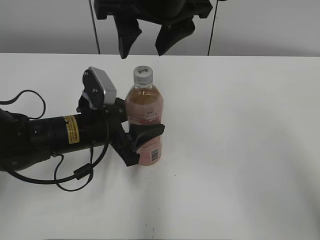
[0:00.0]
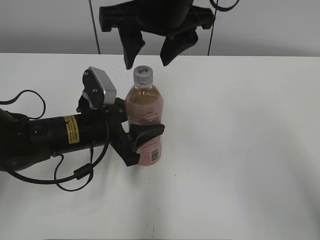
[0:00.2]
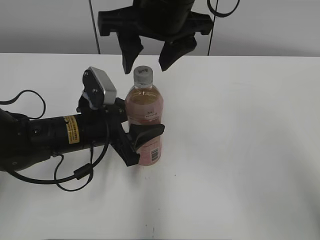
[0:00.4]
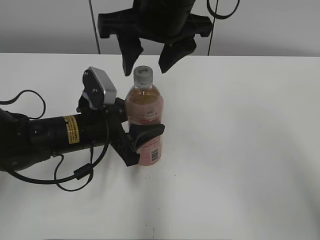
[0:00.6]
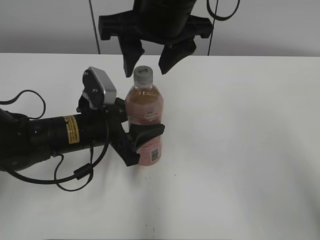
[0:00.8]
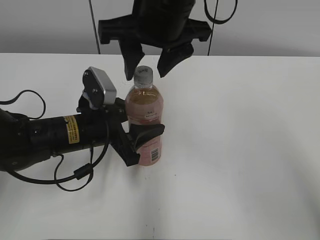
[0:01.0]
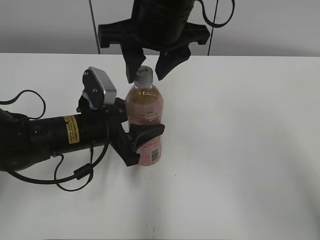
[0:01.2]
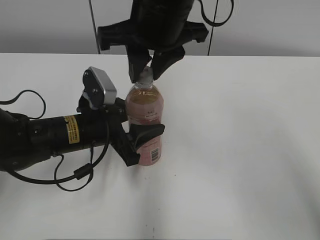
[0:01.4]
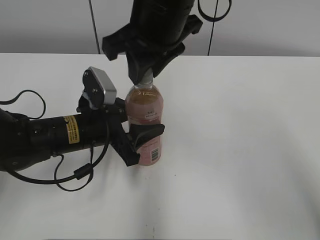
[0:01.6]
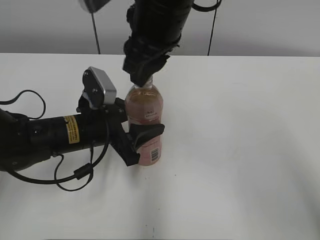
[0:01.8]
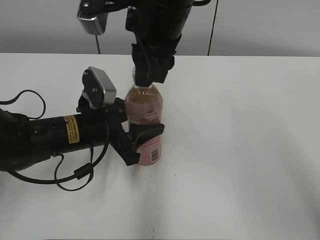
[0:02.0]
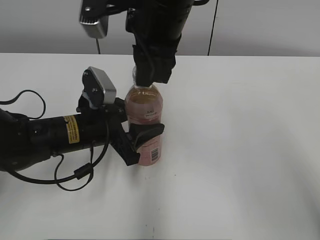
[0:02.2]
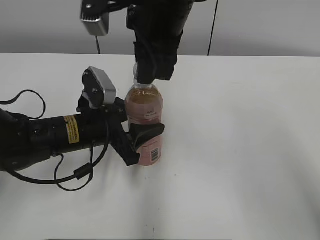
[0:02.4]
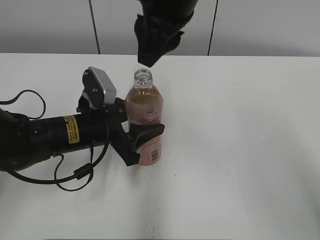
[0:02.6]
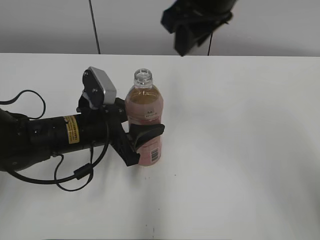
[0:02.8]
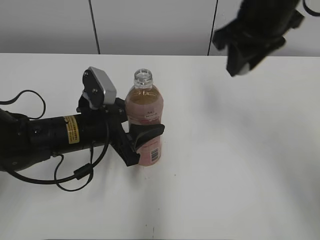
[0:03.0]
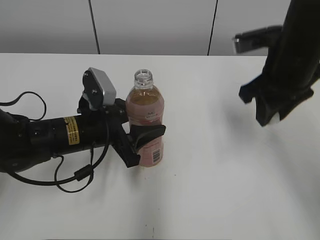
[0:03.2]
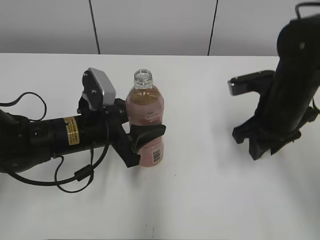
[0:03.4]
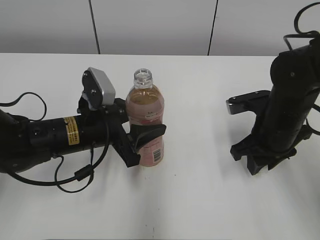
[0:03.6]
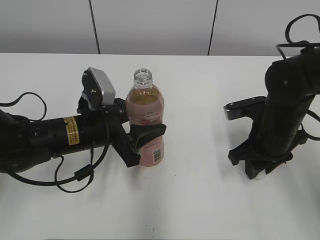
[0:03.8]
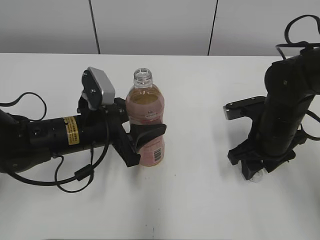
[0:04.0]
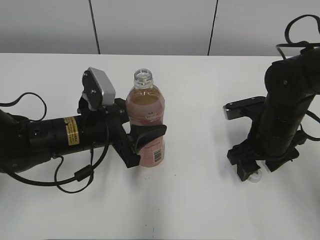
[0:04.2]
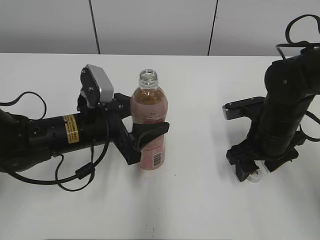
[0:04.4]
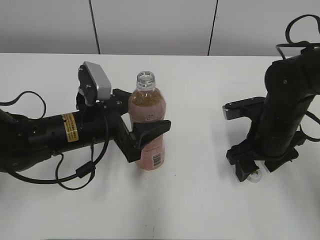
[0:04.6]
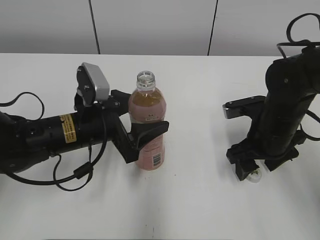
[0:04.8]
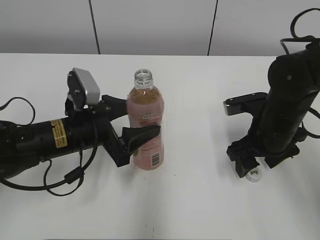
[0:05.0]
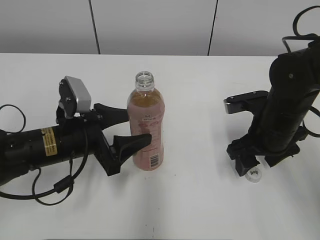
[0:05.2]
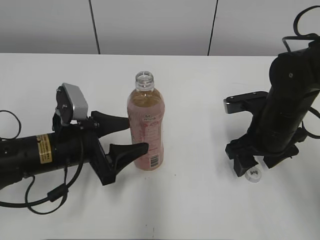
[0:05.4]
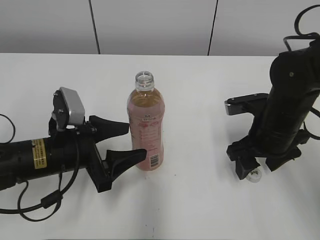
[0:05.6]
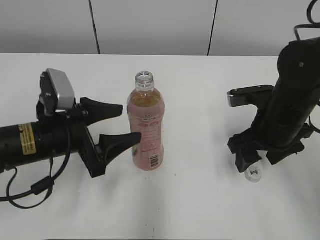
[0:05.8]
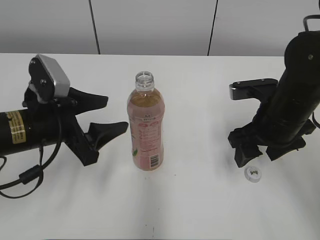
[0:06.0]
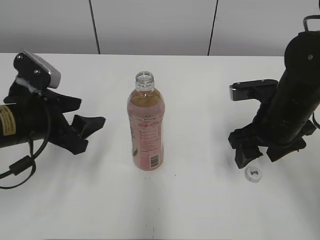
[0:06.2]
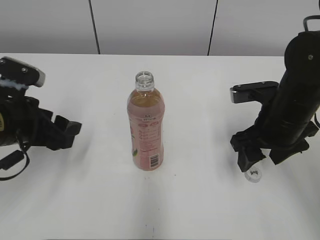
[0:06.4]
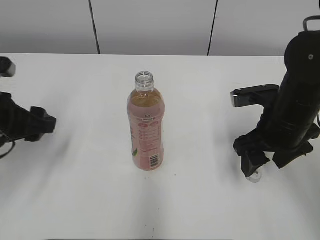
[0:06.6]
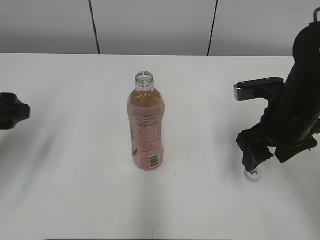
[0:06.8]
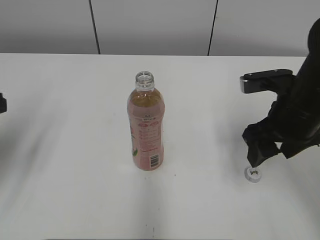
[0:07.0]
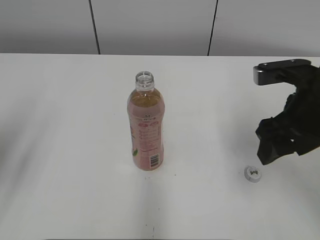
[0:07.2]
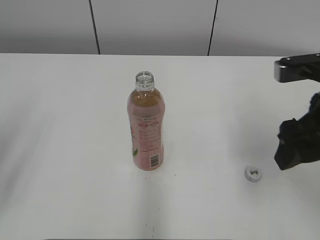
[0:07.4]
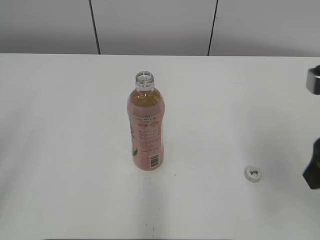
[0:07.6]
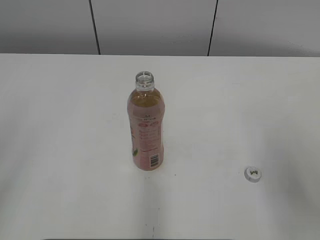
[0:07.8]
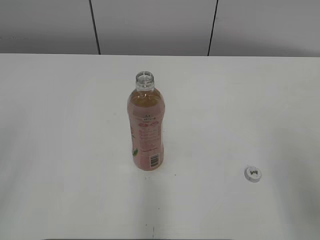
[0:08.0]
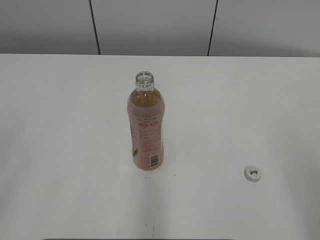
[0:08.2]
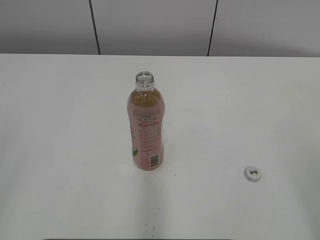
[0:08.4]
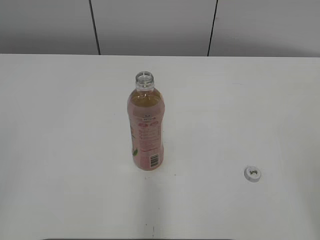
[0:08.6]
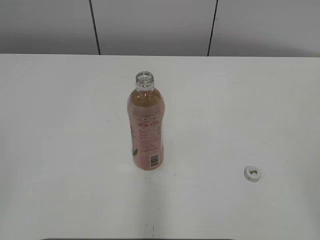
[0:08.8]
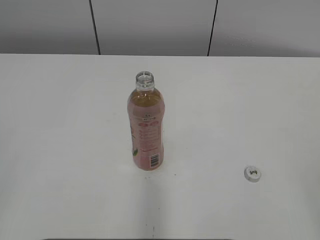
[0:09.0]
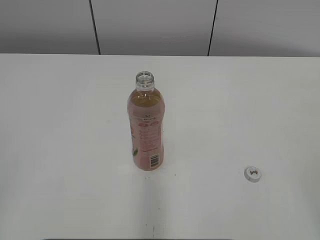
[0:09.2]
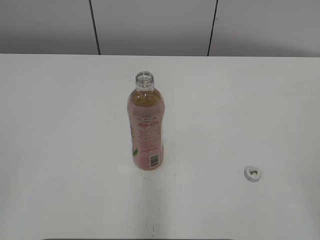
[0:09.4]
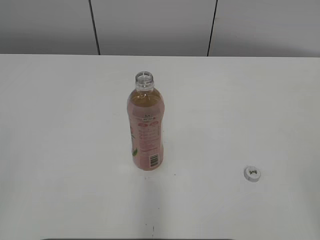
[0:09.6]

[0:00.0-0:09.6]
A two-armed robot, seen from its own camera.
Step, 0:02.6 to 0:03.8: Place the bottle cap on the right.
Step, 0:04.2 to 0:04.4: Place the Peach Oolong Tea with the left hand.
0:00.0 to 0:01.6: The right gripper closes up.
0:01.6 to 0:03.2: The right gripper is displaced to the right by approximately 15 cm.
0:03.2 to 0:04.8: The right gripper shifts about 10 cm downward, and opens. Meanwhile the left gripper opens up.
0:04.8 to 0:06.4: The left gripper is displaced to the left by about 10 cm.
0:06.4 to 0:08.0: The left gripper moves backward, upward and to the left, about 25 cm. Meanwhile the right gripper heads backward, upward and to the right, covering approximately 25 cm.
0:08.0 to 0:09.6: The right gripper heads backward and to the right, covering about 10 cm.

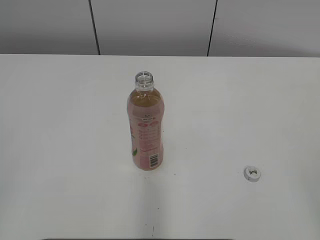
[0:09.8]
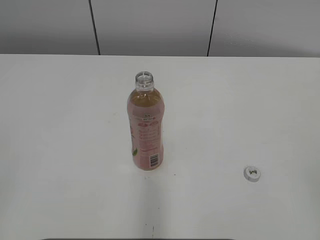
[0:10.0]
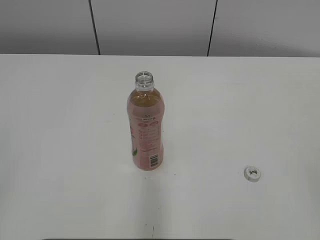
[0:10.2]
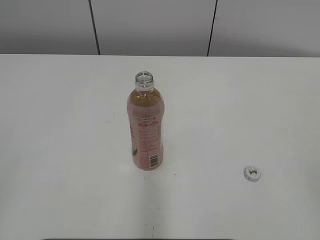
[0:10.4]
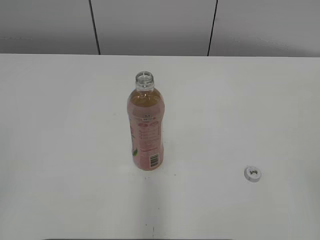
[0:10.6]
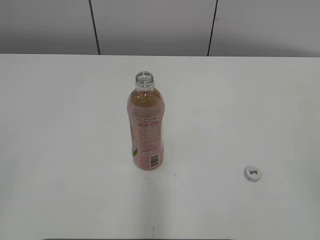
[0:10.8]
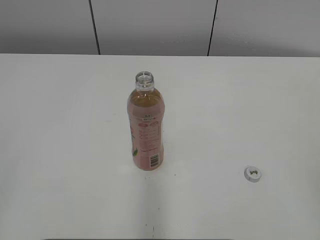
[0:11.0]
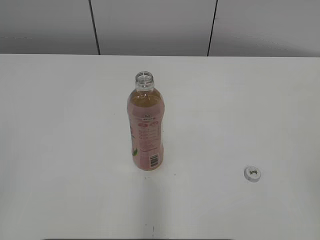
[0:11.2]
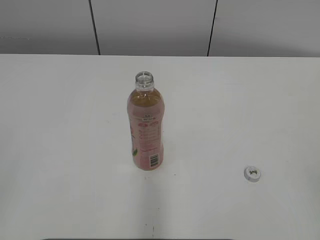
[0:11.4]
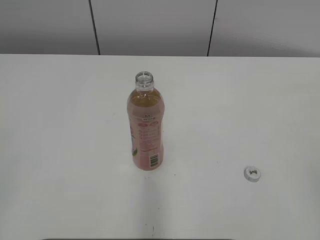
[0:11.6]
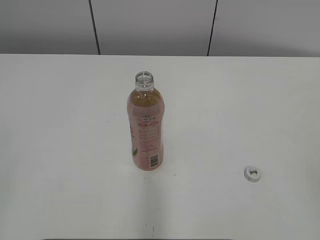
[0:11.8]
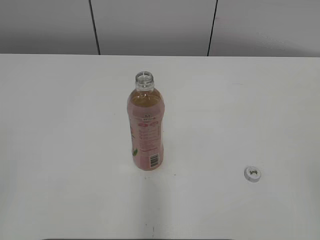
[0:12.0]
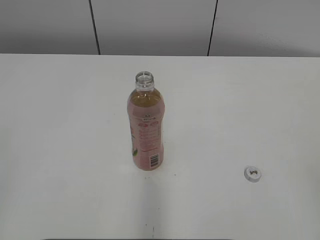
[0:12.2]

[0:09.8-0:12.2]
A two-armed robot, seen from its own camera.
0:11.0 to 0:12.2: The two grippers keep their place.
